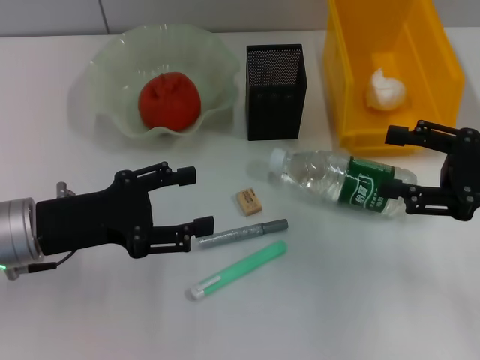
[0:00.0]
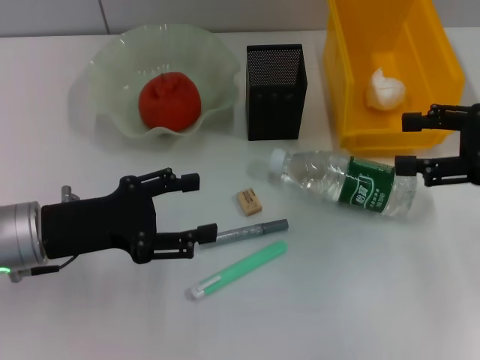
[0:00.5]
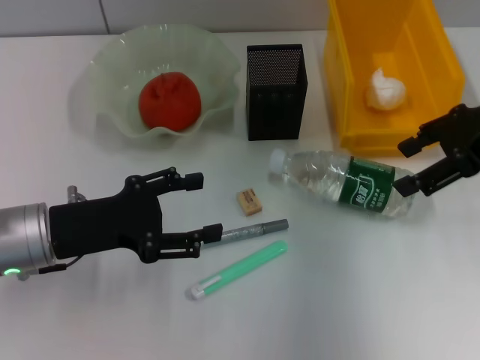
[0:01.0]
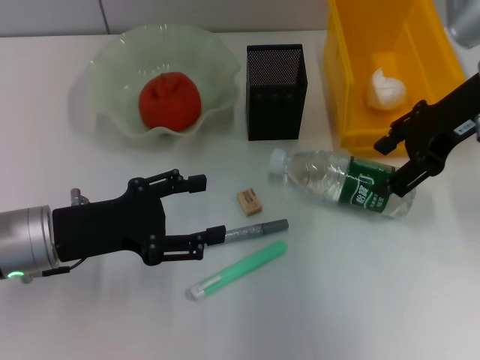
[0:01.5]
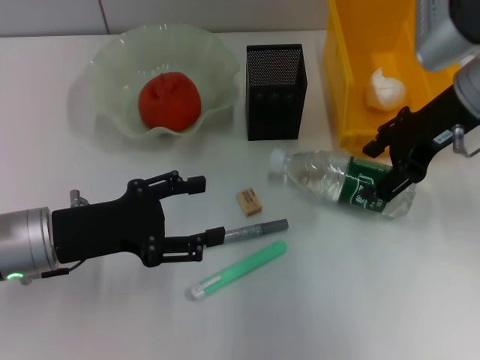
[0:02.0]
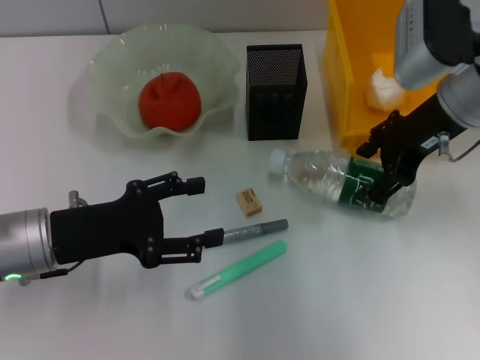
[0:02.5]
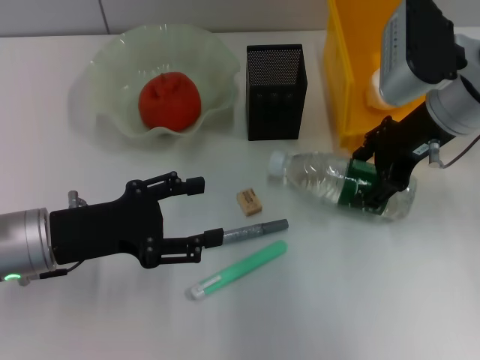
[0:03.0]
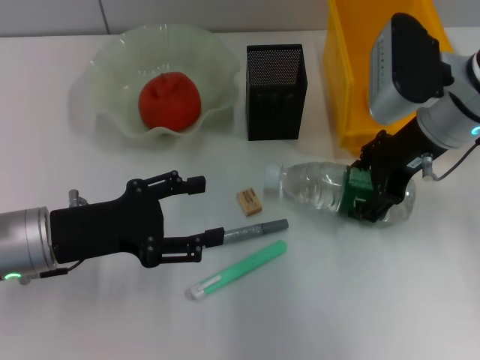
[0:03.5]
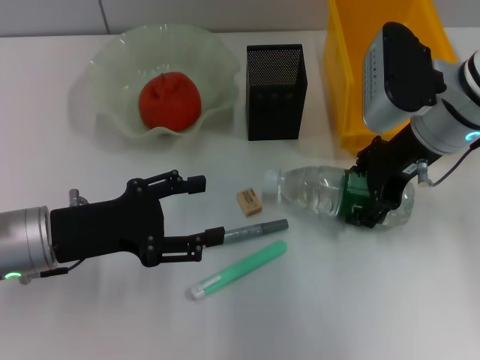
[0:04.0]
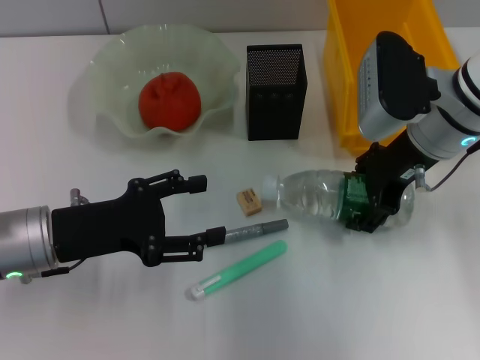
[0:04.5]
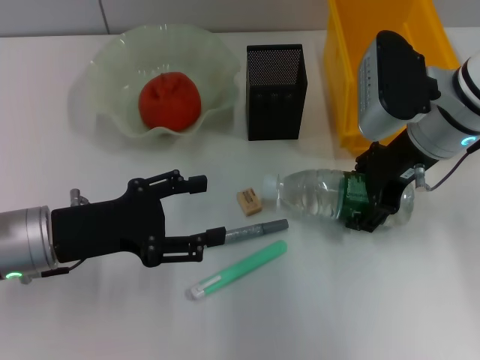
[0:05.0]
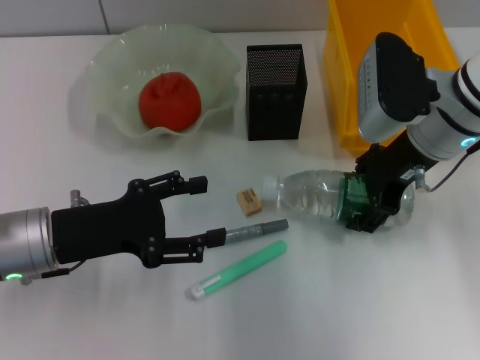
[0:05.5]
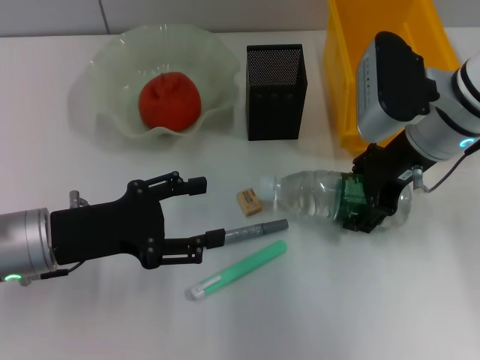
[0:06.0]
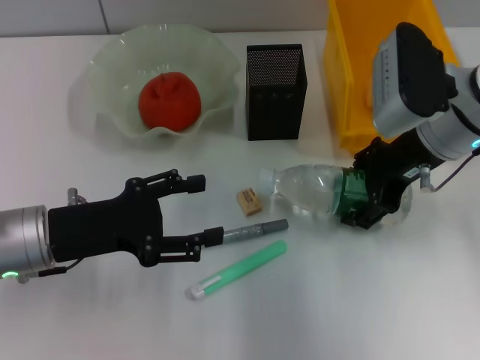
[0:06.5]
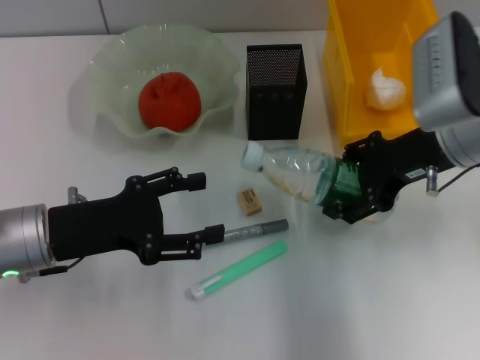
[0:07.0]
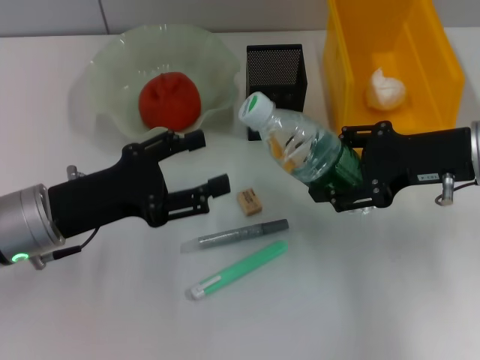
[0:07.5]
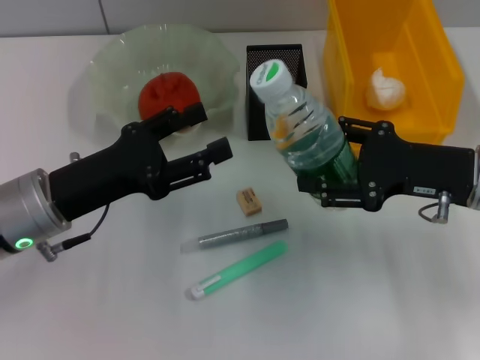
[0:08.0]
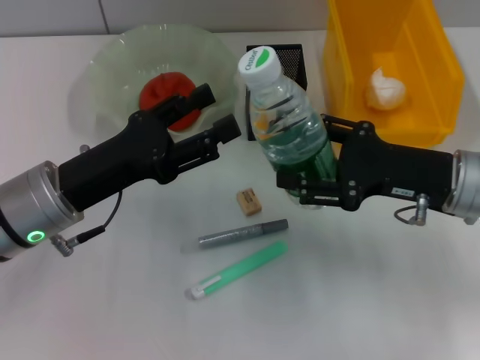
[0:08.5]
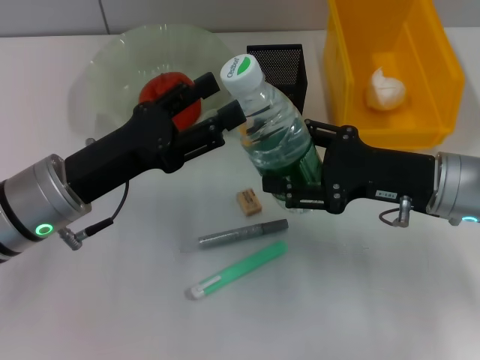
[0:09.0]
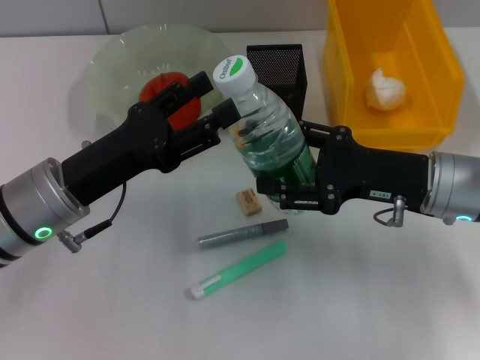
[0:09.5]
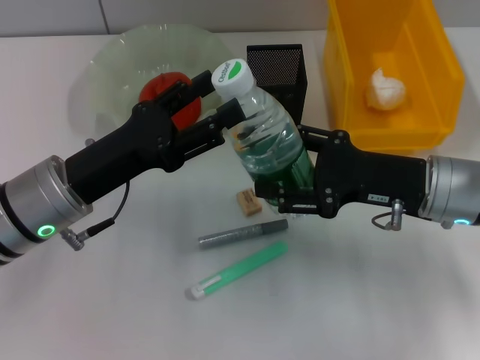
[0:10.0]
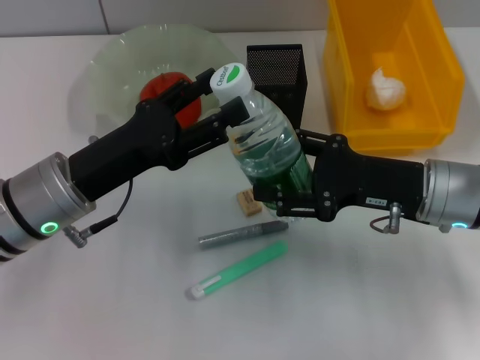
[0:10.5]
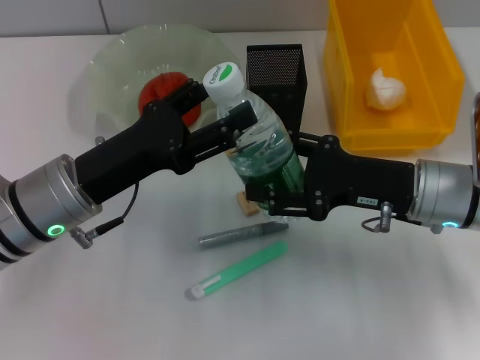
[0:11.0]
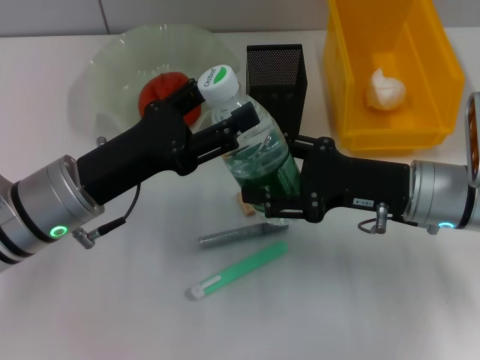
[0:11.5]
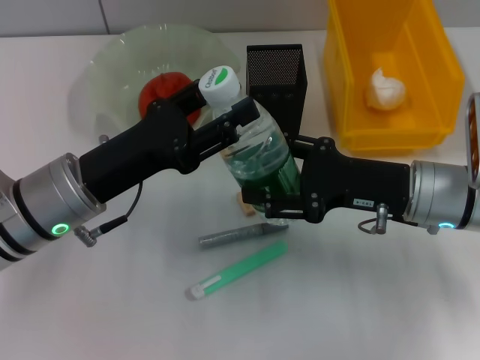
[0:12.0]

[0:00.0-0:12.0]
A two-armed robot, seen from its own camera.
Step, 0:00.0 to 0:05.5: Grab the water bottle with the right hand.
0:00.0 to 0:02.0: The right gripper heads forward, to the left and upward, covering about 15 cm.
0:02.0 to 0:04.0: The grippers stay close to where they were, moving slightly.
0:04.0 to 0:06.0: Both grippers stay put.
0:06.0 to 0:08.0: The right gripper travels backward and to the right by approximately 10 cm.
0:08.0 to 0:10.0: The grippers move only a little.
0:10.0 to 0:12.0: The two grippers keep their place.

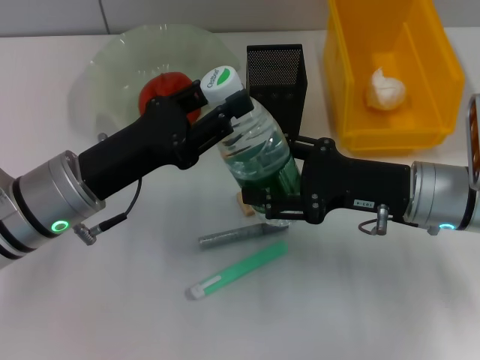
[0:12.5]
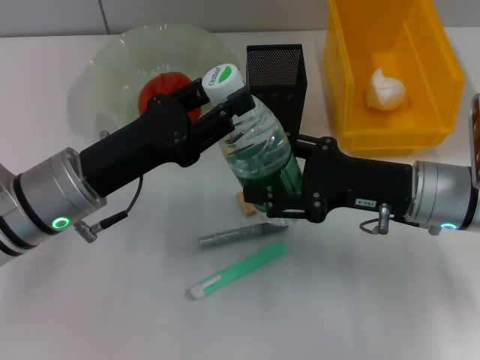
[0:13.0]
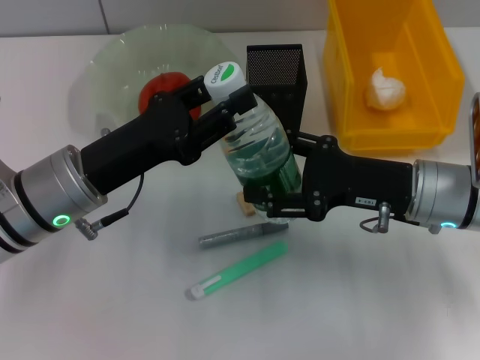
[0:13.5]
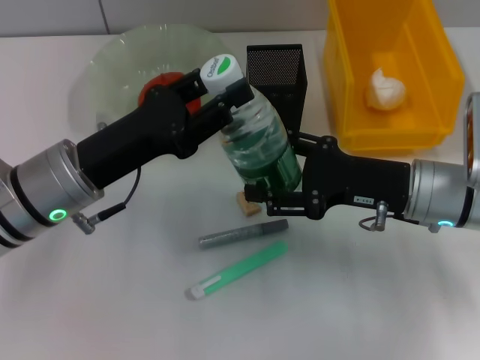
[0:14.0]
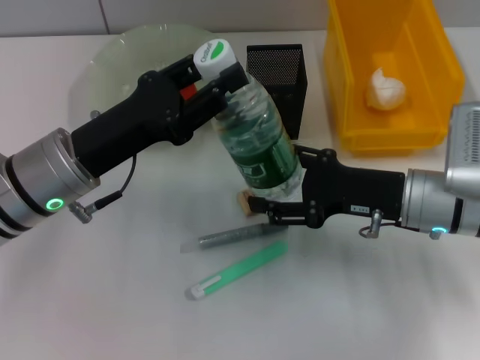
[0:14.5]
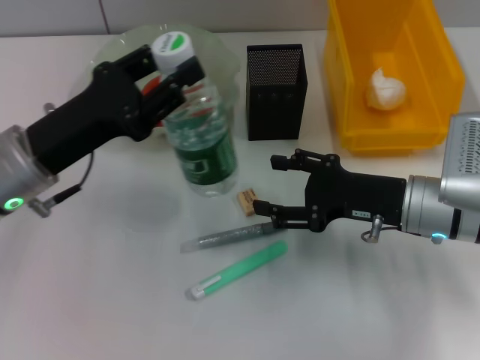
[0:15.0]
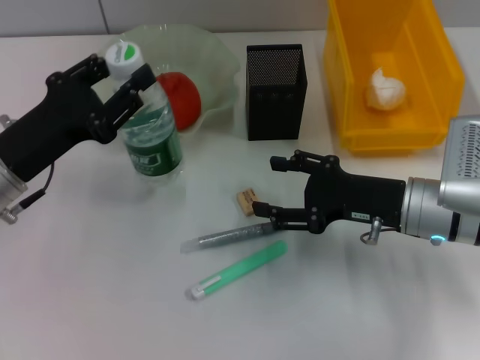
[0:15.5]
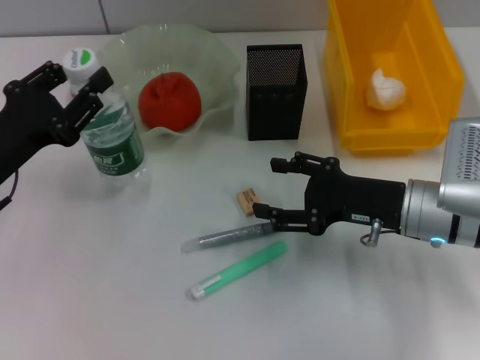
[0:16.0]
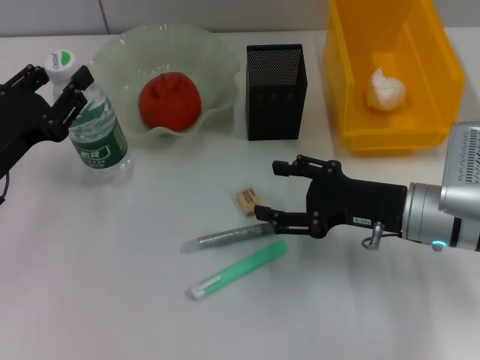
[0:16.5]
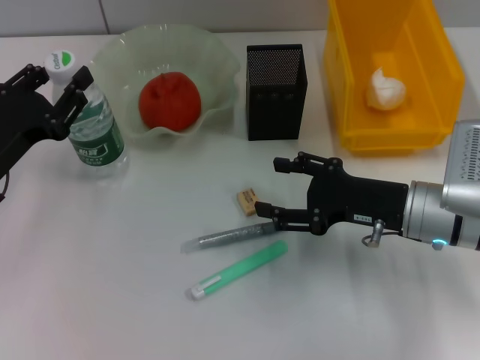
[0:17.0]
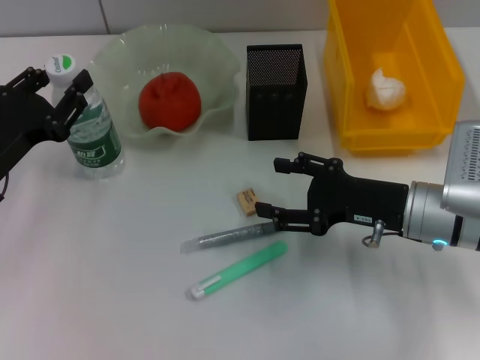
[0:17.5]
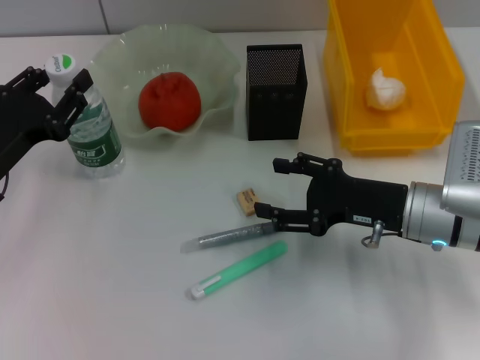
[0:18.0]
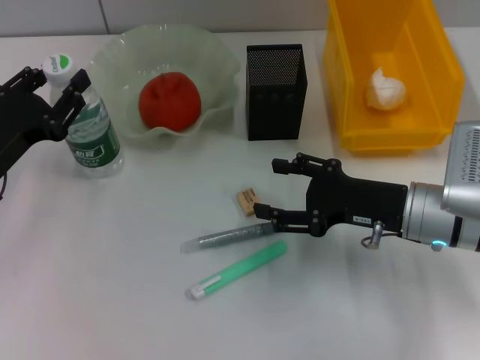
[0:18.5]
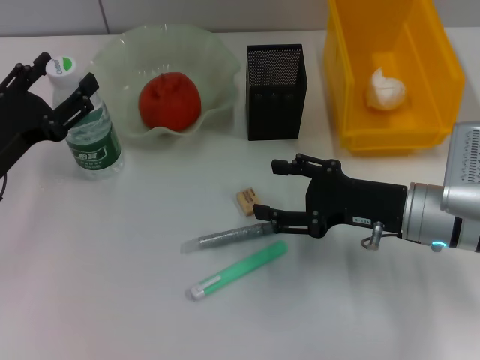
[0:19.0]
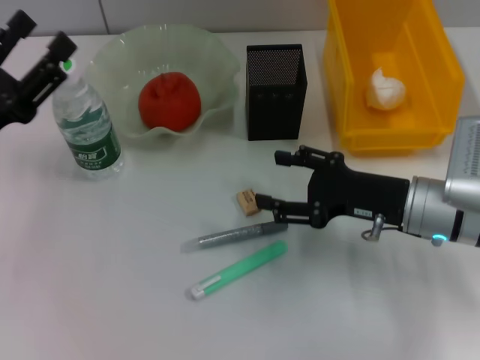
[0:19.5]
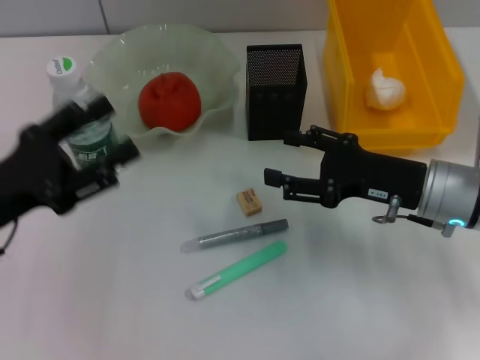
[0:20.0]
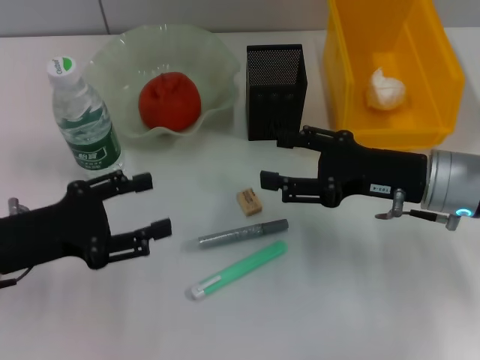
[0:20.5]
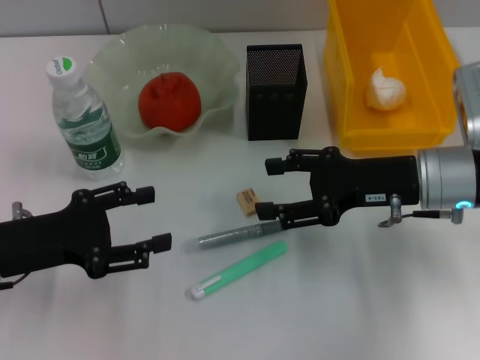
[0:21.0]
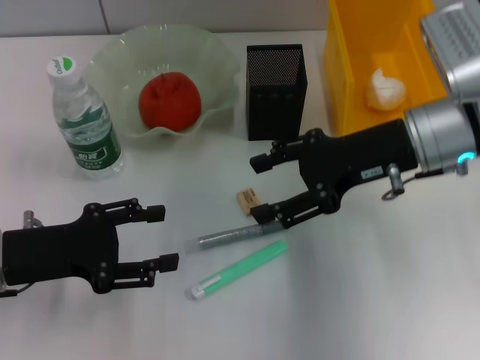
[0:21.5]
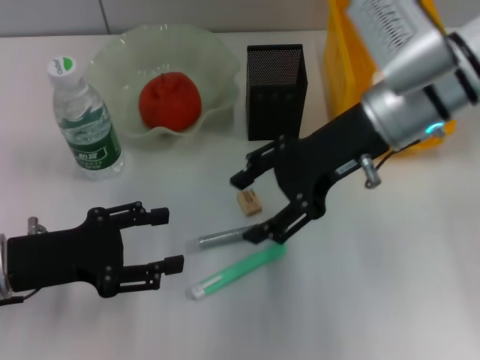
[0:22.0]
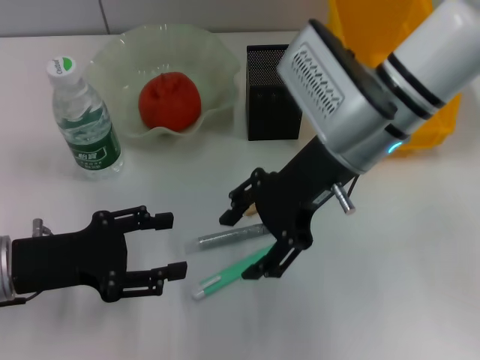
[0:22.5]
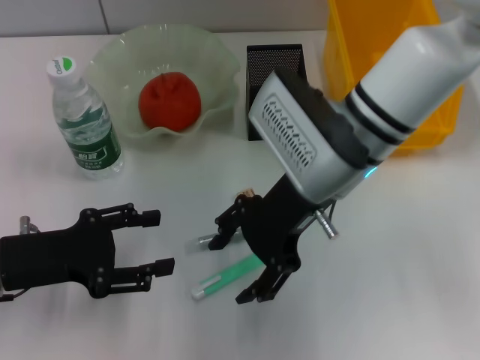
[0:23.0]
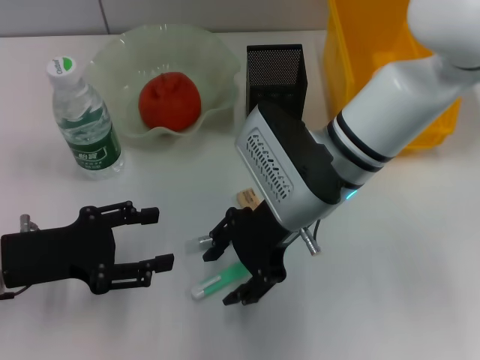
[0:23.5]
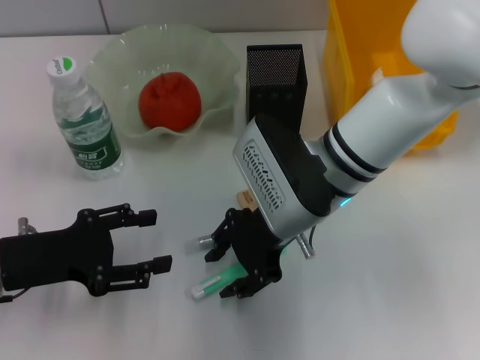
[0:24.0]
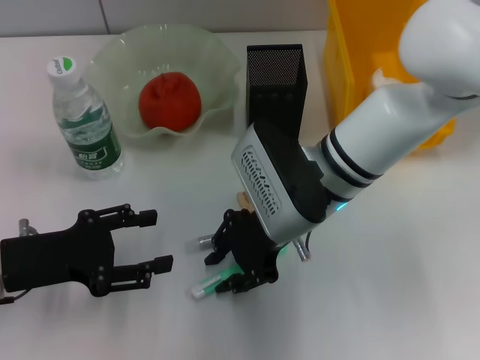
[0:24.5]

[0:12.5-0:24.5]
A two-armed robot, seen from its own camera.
Step, 0:12.5 to 0:14.5: Pass the water bottle from the right hand to the left hand.
Step, 0:15.0 to 0:18.5: Place the water bottle on the table with the left hand.
0:12.5 to 0:14.5: There are only small adjustments of the grippers.
0:14.5 to 0:16.5: The left gripper travels to the left by about 10 cm.
0:16.5 to 0:18.5: Neither gripper changes place.
0:18.5 to 0:20.5: The left gripper opens up.
0:20.5 to 0:22.5: The right gripper heads to the left and upward, covering approximately 15 cm.
0:22.5 to 0:24.5: The right gripper heads downward, covering some 5 cm, and closes up.

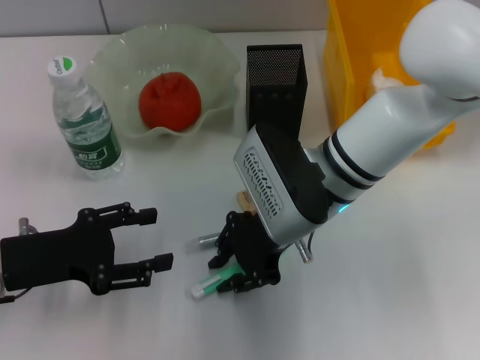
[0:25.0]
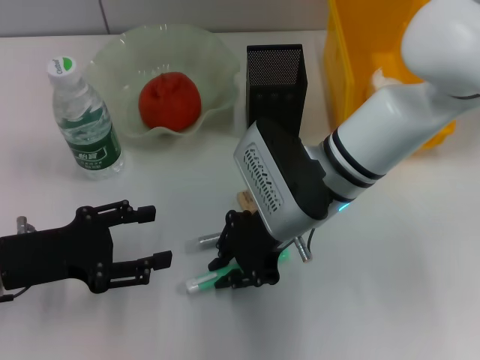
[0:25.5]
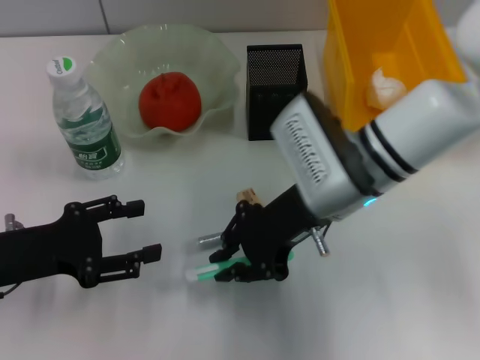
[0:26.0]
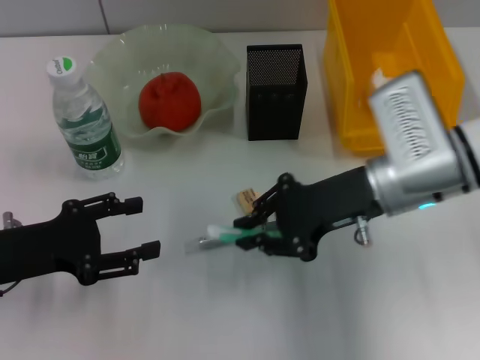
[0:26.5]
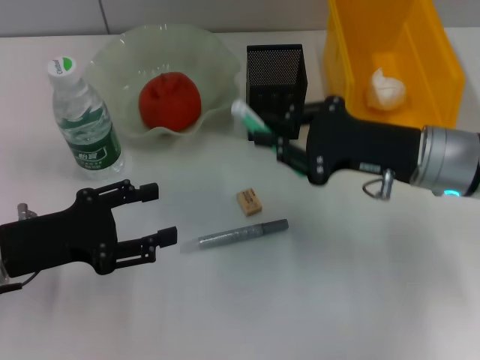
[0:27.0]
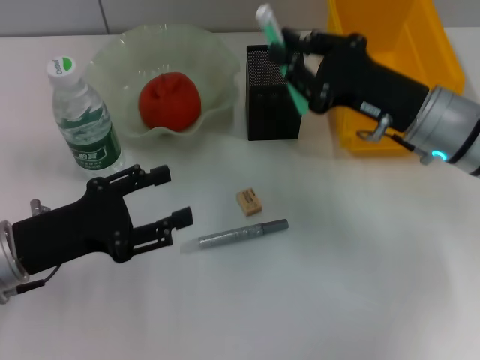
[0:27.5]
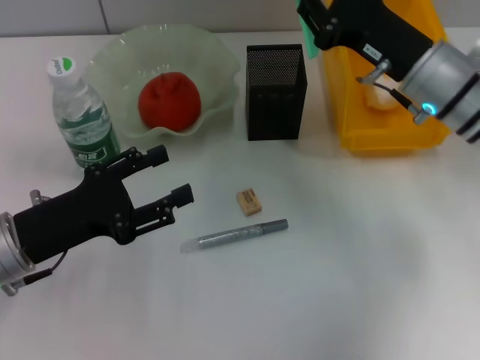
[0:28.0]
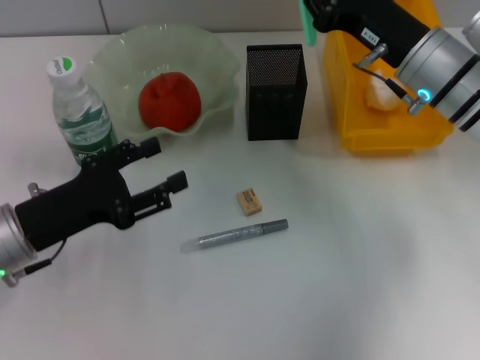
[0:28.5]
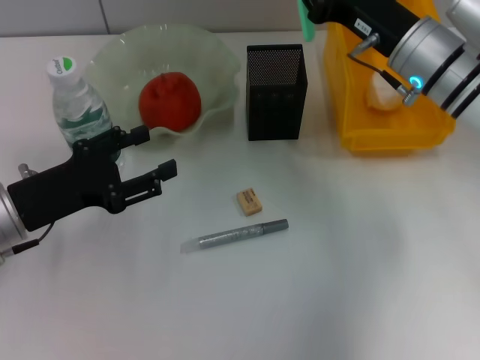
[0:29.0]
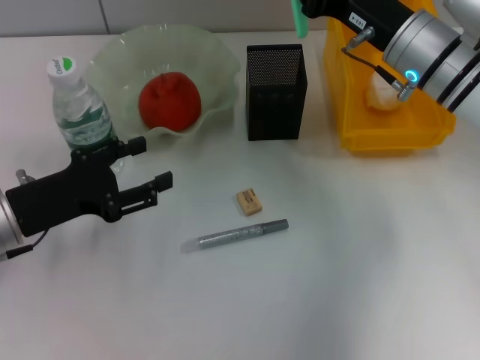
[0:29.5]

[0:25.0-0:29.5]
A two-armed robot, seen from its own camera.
0:25.0 to 0:27.0: The right gripper travels to the right by approximately 15 cm.
0:27.0 to 0:29.5: The right gripper is displaced forward by some 10 cm.
